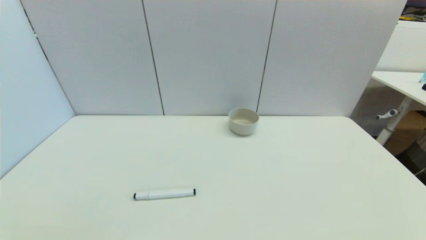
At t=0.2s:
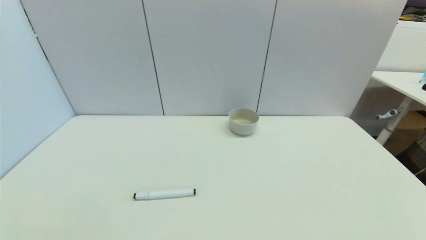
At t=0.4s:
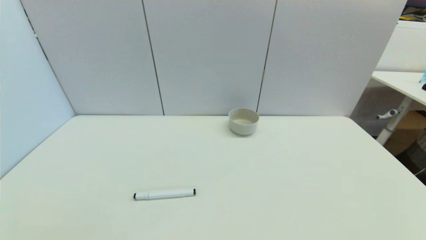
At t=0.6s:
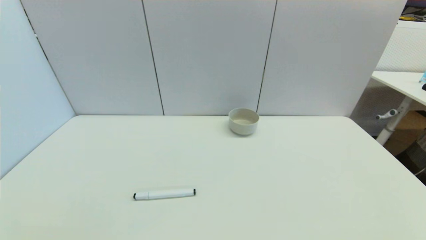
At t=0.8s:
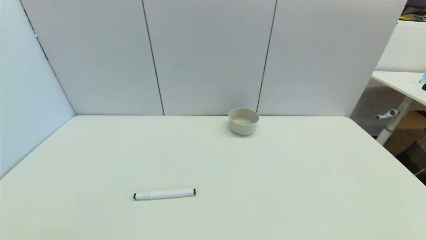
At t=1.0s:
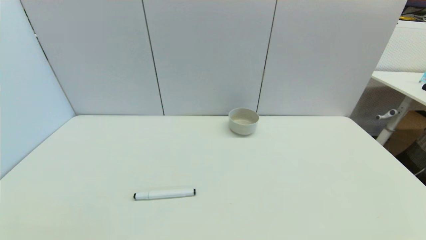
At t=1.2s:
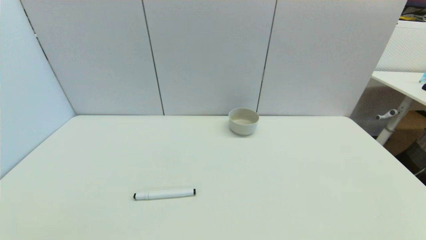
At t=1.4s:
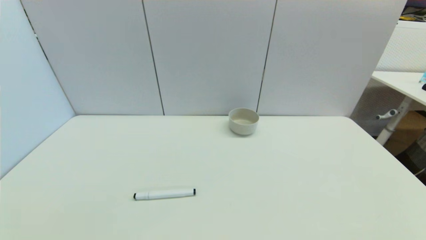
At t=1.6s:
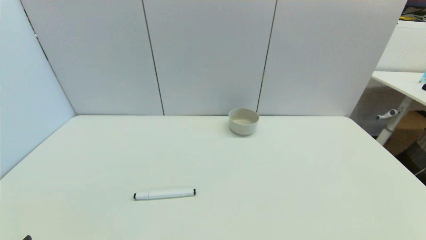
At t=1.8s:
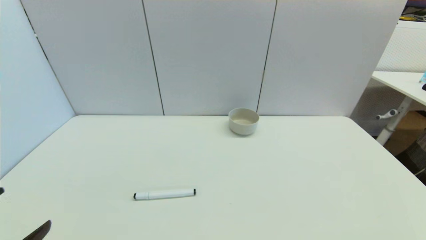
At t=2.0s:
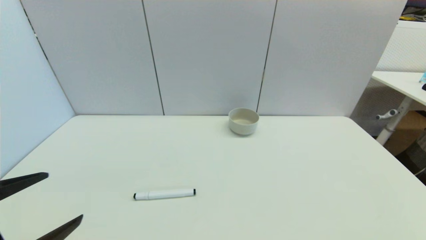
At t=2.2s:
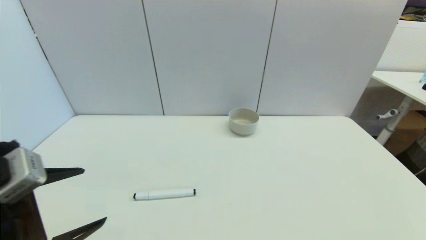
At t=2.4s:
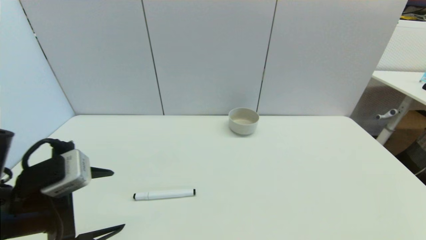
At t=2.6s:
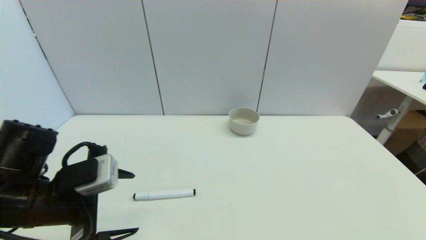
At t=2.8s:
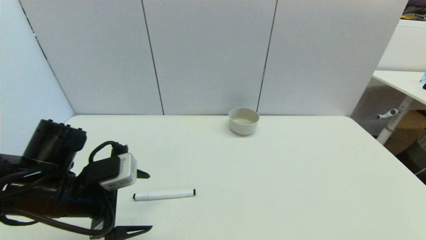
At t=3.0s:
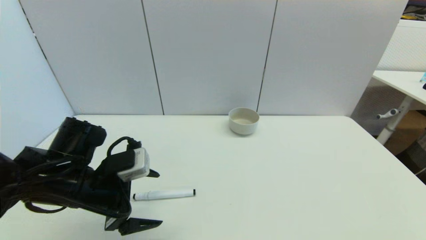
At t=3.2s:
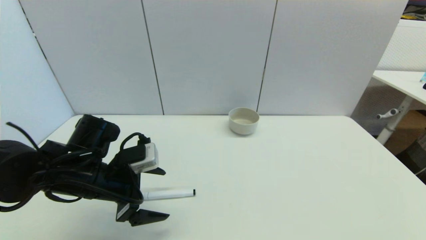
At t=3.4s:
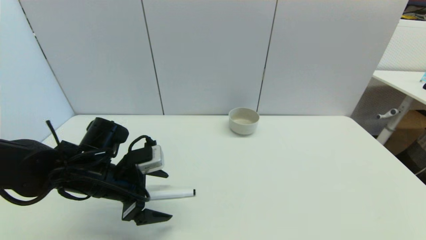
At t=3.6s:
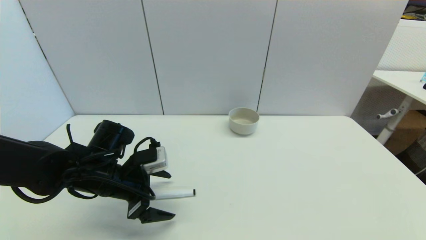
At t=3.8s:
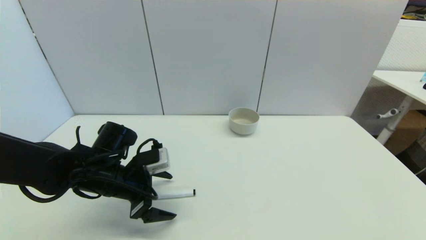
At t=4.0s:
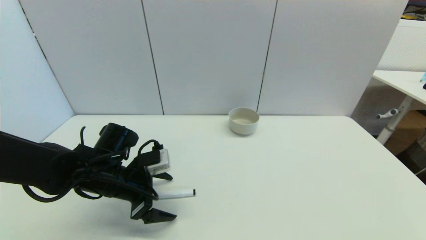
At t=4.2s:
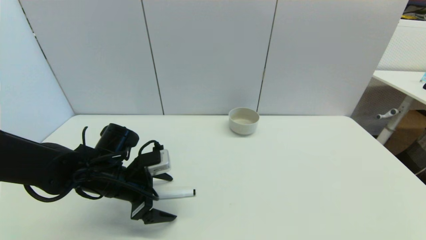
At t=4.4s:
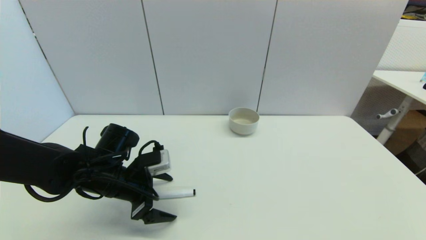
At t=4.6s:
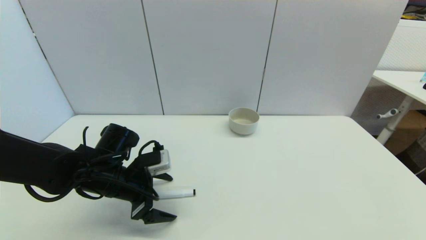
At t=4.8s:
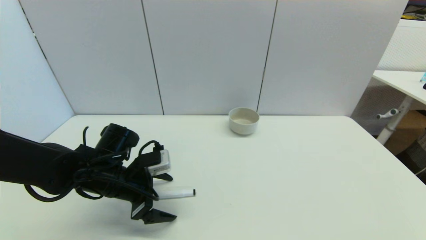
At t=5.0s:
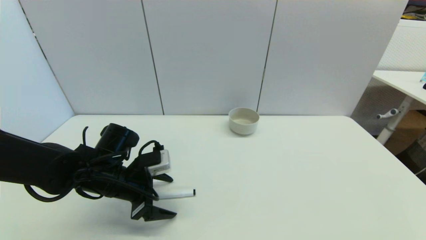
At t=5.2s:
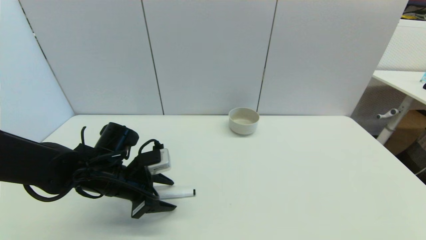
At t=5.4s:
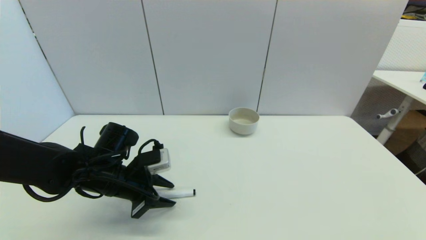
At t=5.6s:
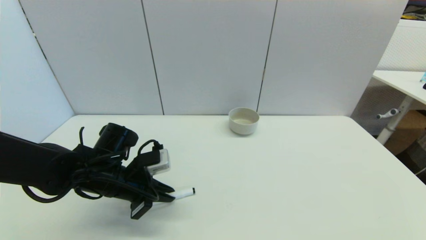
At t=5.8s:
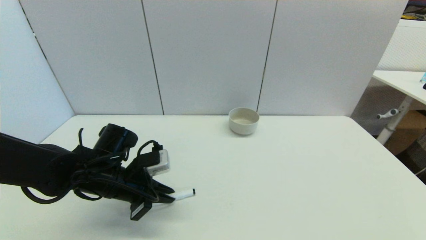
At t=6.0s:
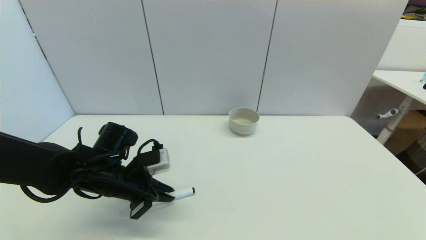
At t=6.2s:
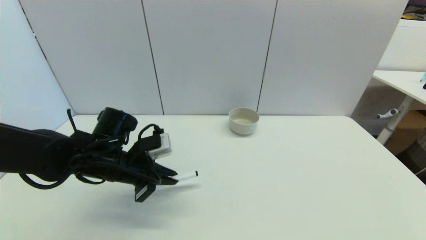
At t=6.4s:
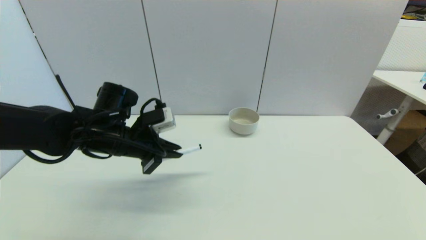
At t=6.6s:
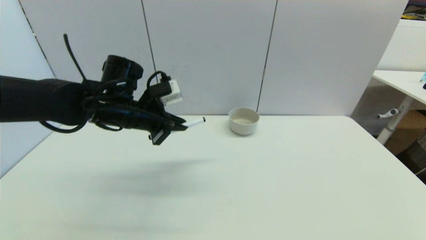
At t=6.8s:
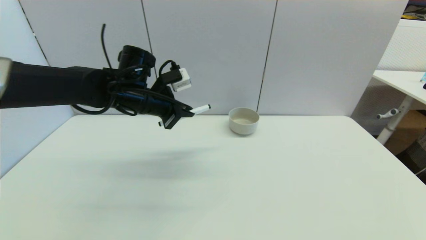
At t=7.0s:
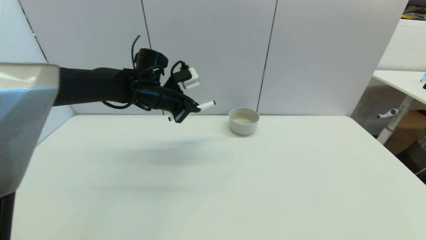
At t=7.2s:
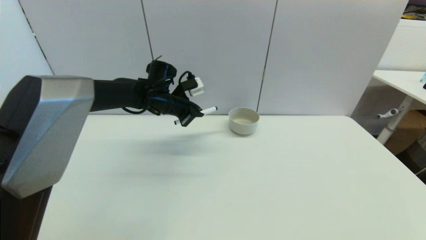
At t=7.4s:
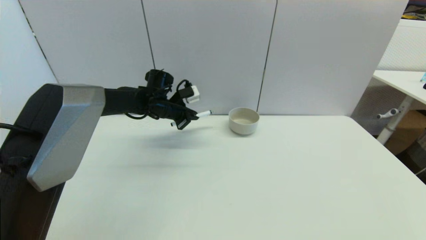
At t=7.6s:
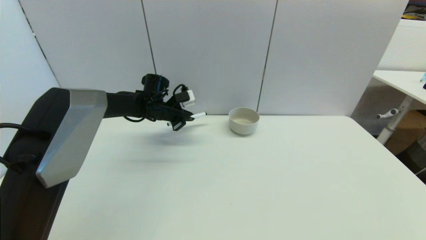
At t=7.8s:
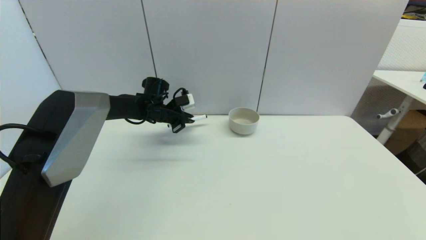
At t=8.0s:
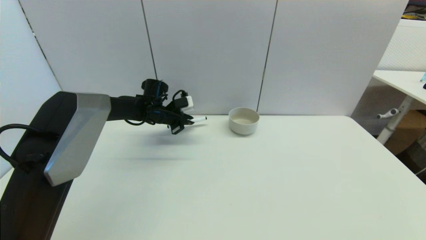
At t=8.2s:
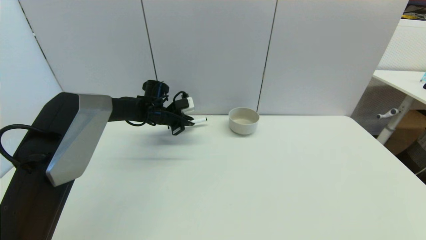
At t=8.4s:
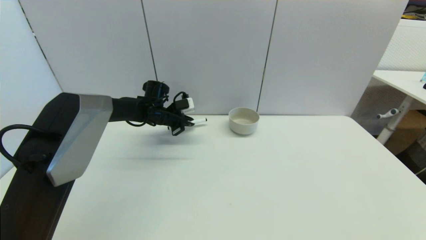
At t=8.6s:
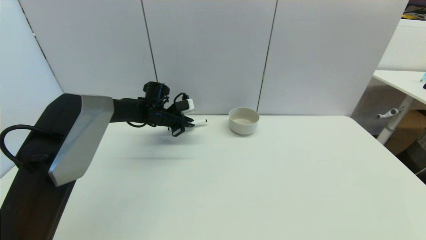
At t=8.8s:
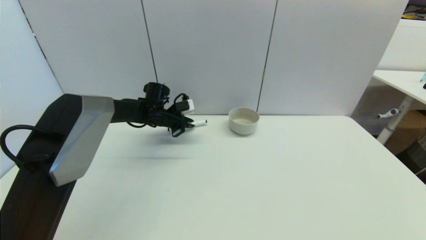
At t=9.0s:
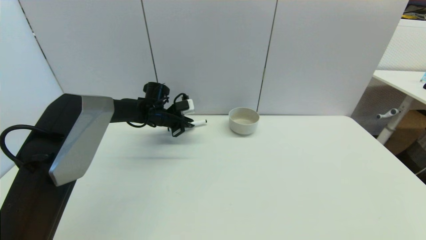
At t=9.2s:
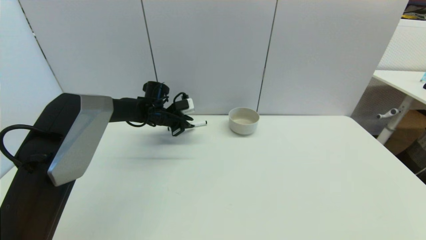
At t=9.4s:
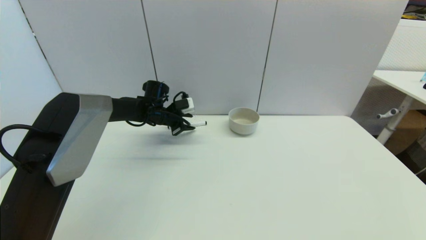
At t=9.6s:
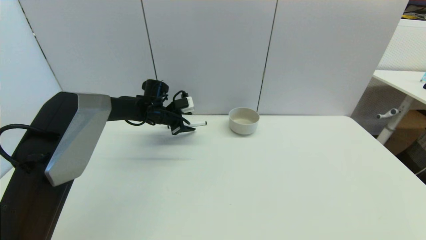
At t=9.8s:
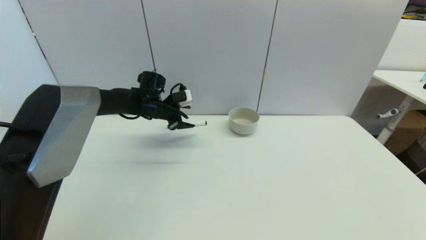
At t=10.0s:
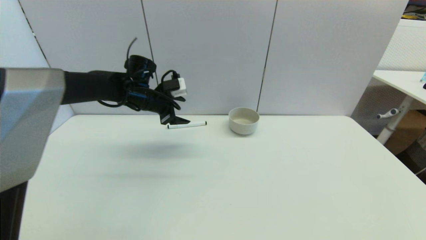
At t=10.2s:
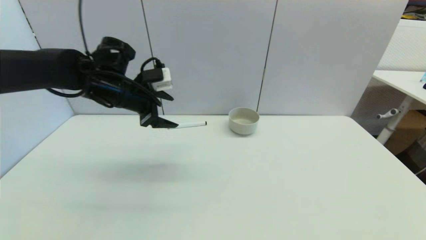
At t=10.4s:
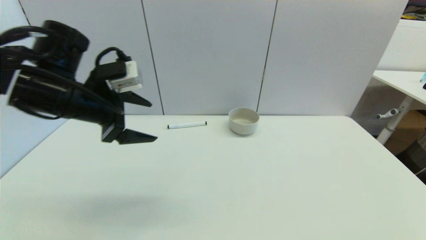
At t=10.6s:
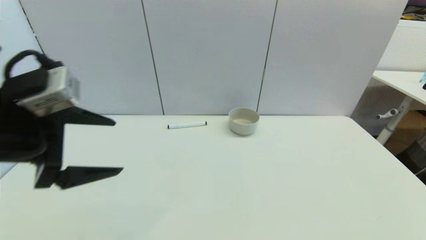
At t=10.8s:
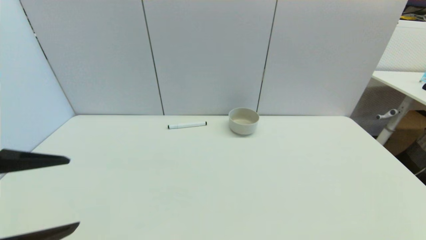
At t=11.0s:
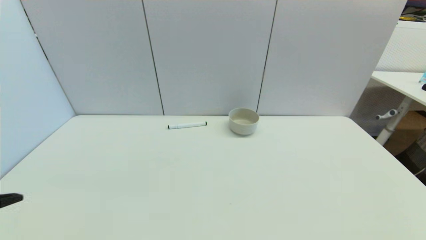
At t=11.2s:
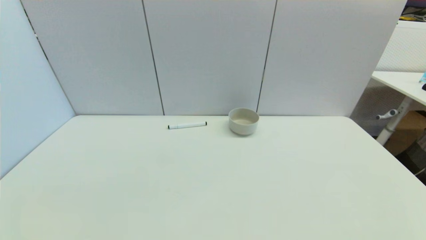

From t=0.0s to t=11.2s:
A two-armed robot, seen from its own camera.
Task of the whole recording: put the black marker in the designated position.
Step, from t=1.8s to t=5.4s: Grasp the Marker pen with left gripper.
Step, from t=5.8s to t=9.2s: Place the Marker pen on the table with left gripper.
From t=1.6s to t=3.2s: The left gripper moves forward and to the right, roughly 25 cm.
From t=3.2s to t=4.8s: There are only small adjustments of the grippers.
From t=4.8s to t=6.4s: The left gripper heads upward, covering roughly 10 cm, and closes its fingers.
From t=6.4s to t=8.0s: The left gripper goes approximately 20 cm forward.
From t=8.0s to t=9.6s: The left gripper opens.
From t=9.6s to t=11.2s: The left gripper goes some 50 cm backward.

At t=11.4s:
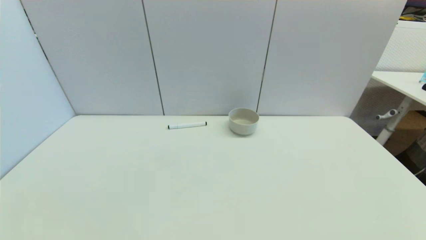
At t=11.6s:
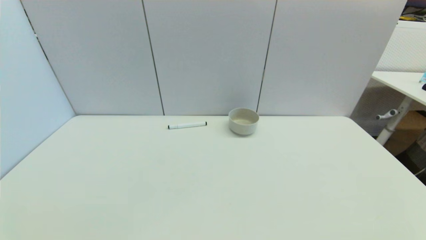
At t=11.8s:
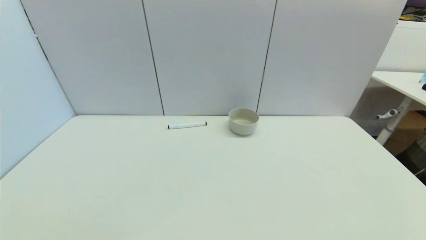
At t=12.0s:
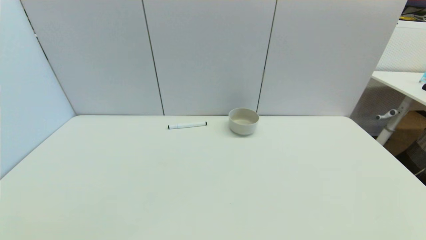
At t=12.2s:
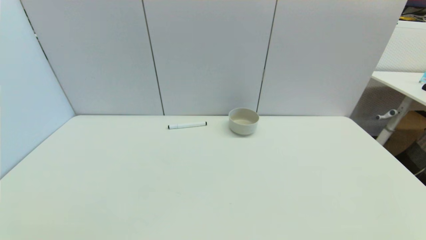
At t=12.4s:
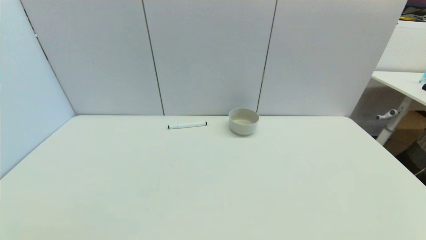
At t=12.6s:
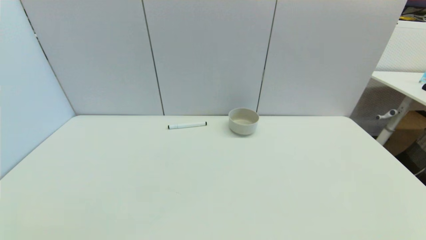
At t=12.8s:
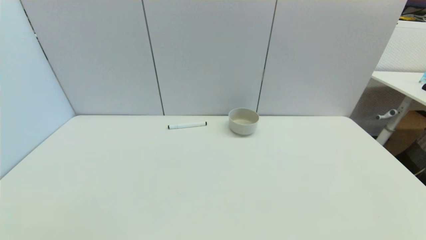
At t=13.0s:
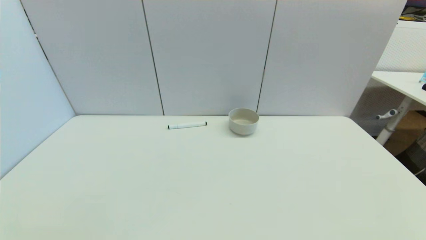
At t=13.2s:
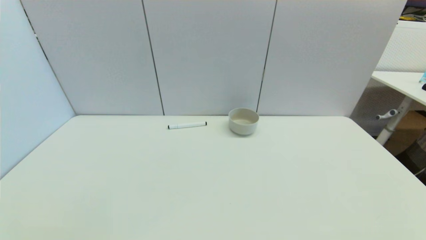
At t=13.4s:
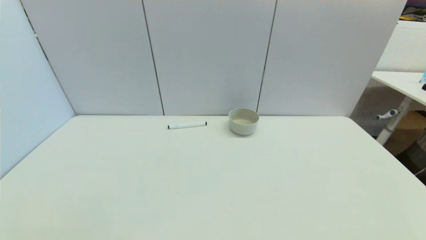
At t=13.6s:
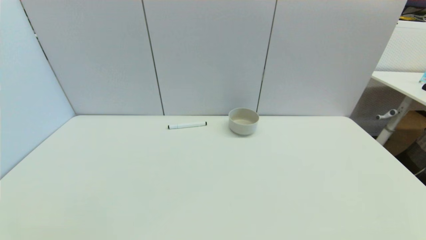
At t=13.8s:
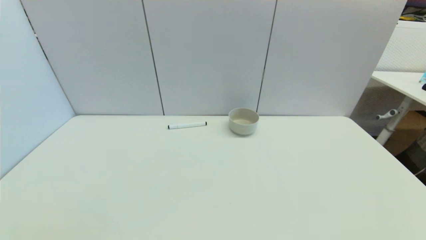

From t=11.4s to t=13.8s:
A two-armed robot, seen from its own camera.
Task of the whole recording: put the black marker in the designated position.
From t=12.6s to t=13.8s: The two grippers keep their place.
